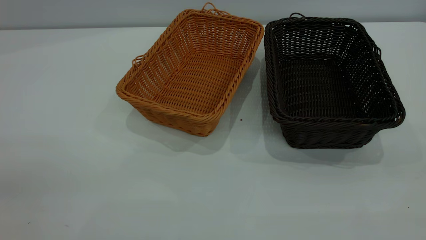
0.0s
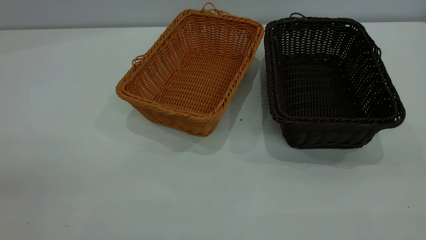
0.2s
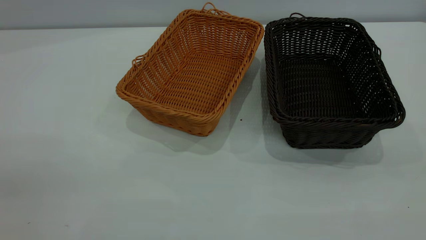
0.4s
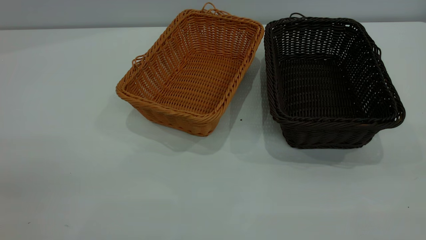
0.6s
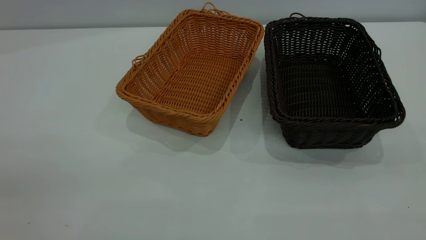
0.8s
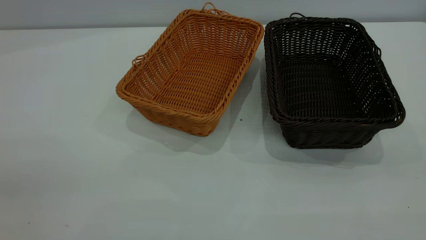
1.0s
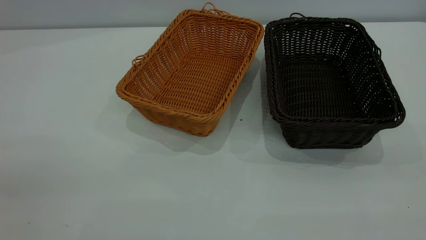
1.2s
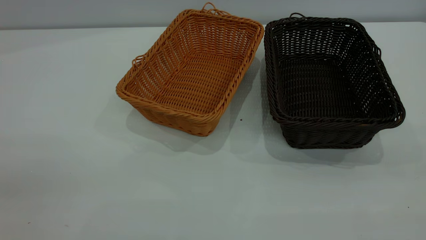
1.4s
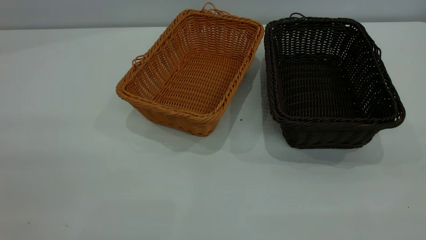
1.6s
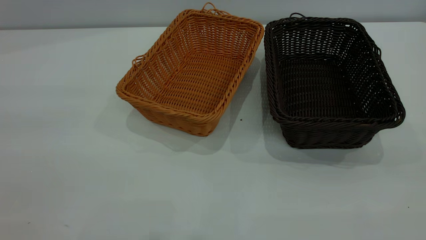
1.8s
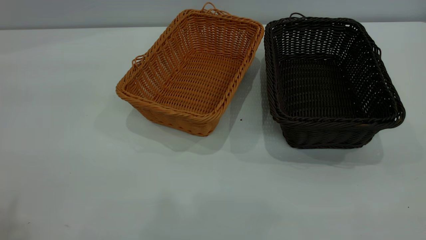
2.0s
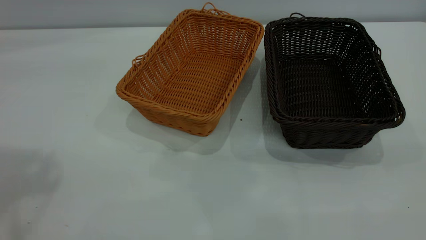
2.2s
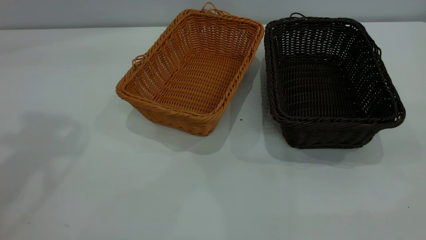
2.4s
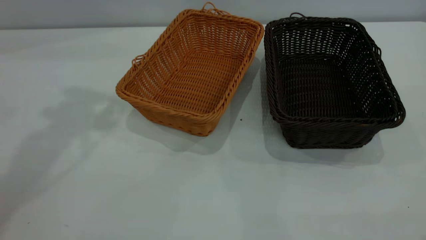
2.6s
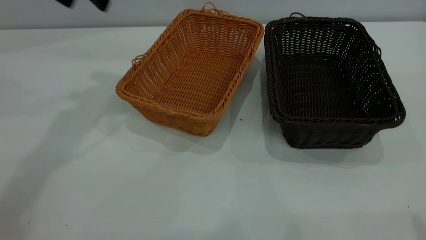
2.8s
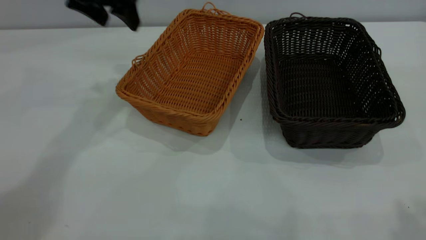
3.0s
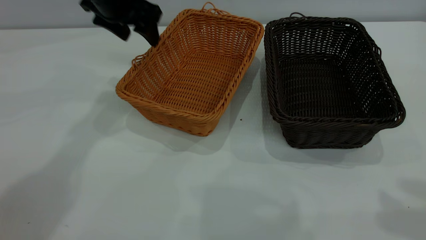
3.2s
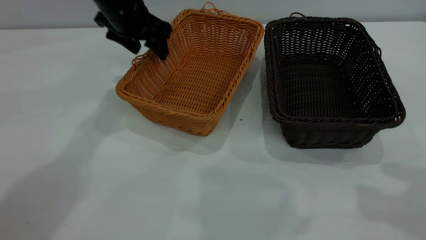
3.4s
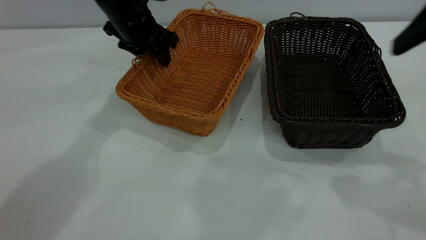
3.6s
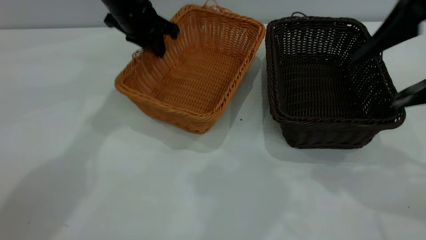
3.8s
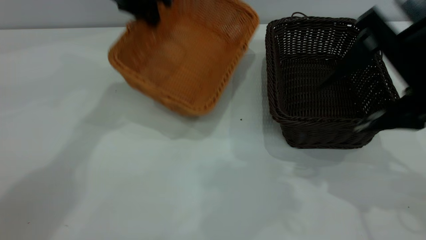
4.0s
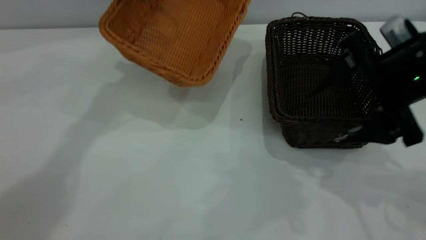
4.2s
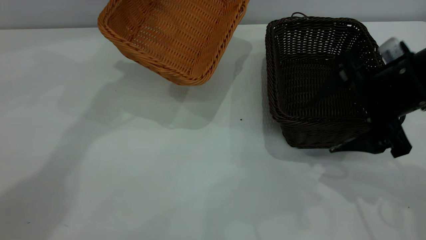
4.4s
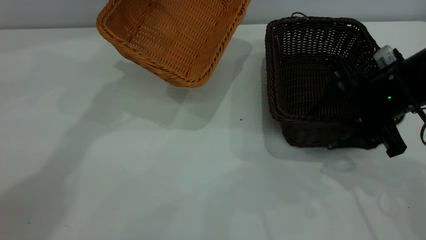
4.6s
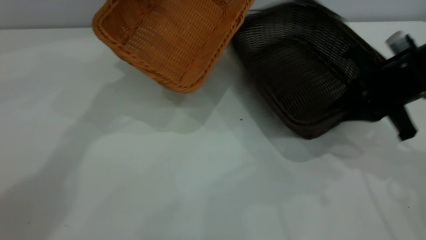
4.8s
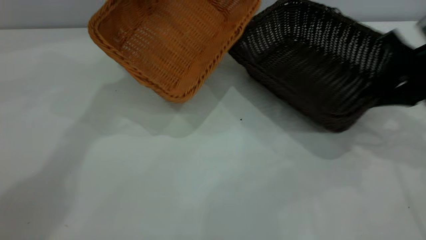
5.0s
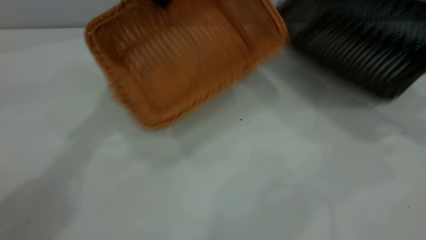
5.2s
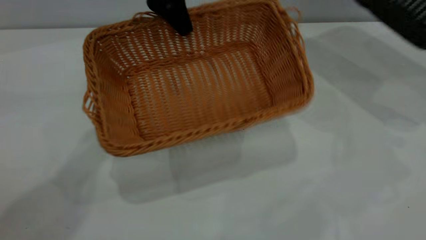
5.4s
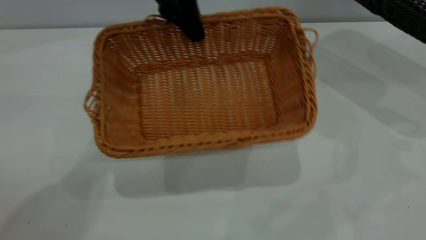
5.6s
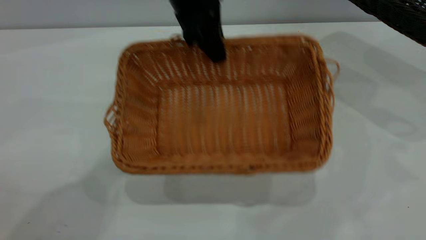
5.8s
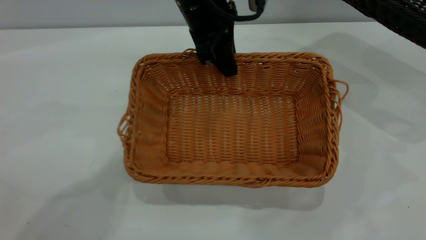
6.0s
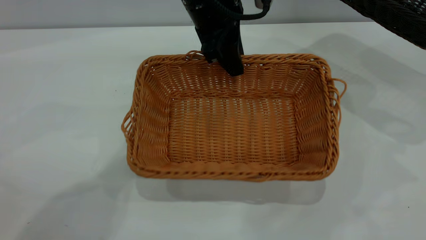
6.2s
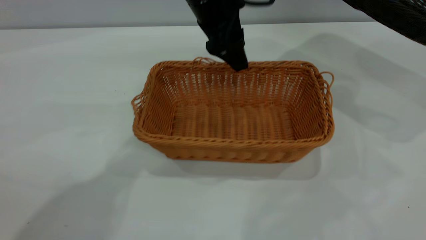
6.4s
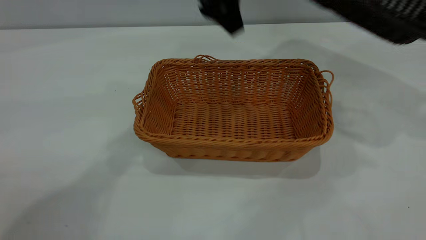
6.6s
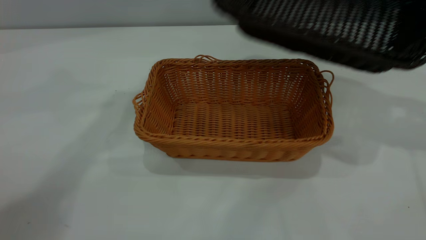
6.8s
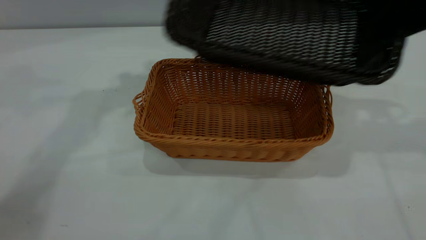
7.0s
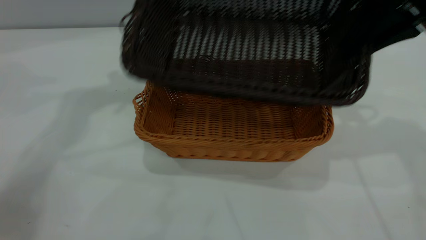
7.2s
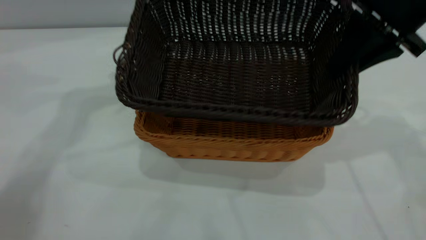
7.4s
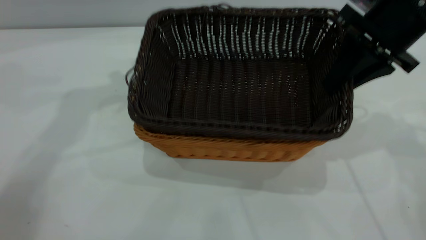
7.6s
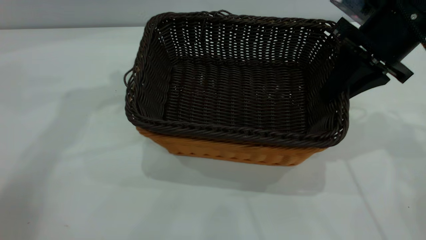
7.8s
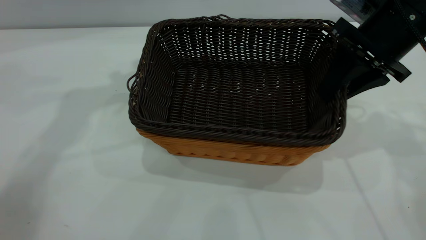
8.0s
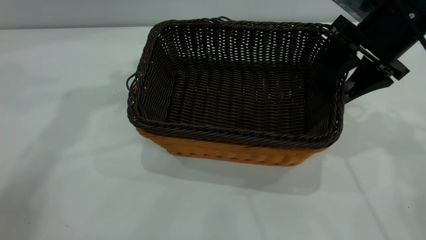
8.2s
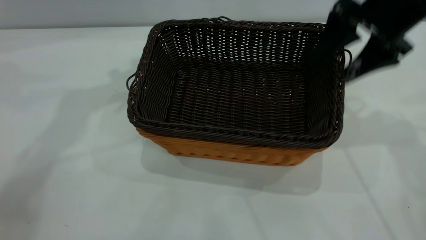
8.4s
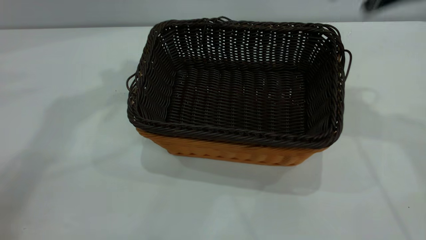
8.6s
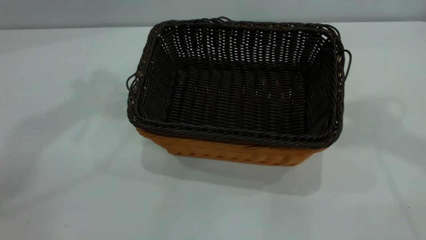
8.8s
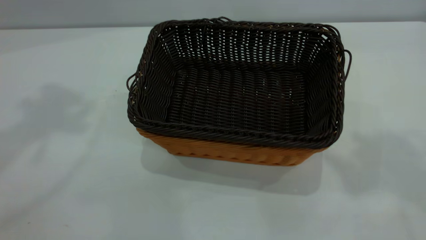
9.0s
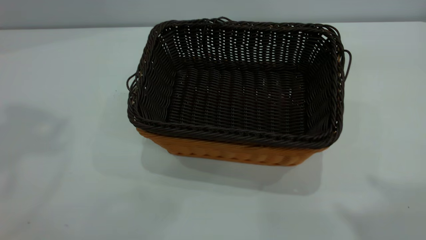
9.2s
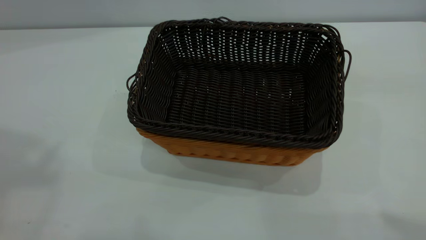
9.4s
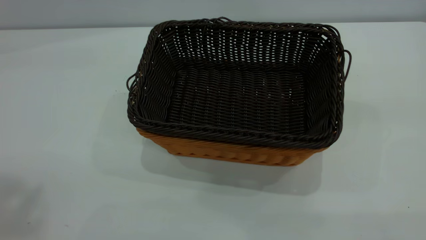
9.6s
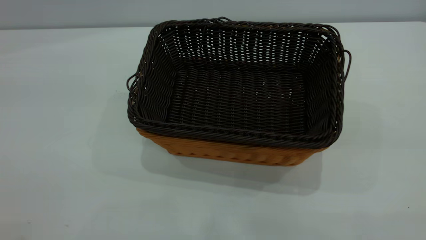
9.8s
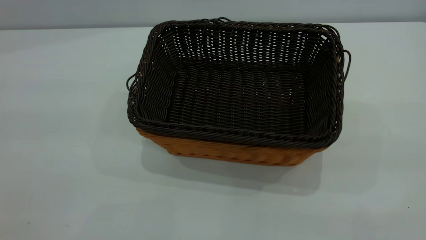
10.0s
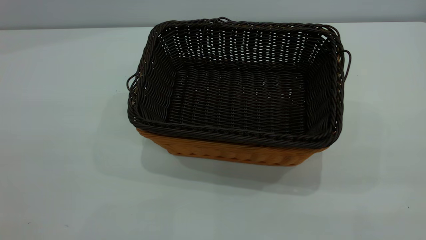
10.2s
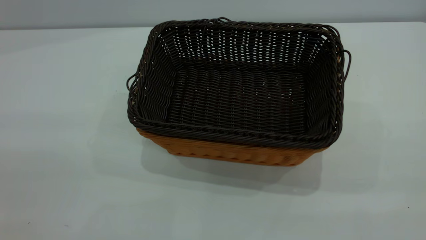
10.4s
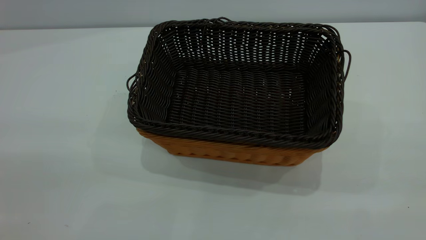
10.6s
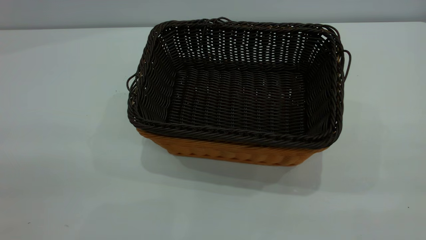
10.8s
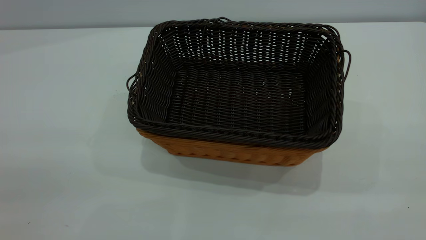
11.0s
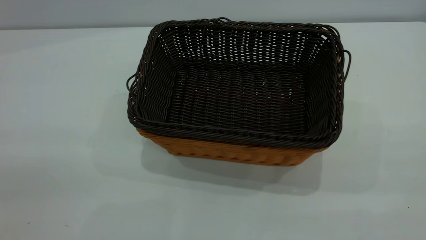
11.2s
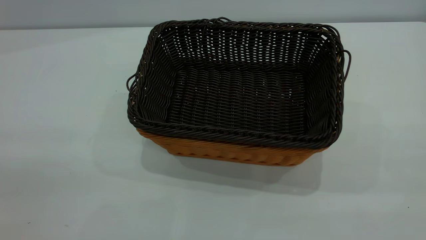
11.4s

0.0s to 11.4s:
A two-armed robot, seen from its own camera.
Task of the whole recording: the left gripper grasp the brown basket and place it in the center of the table, the right gripper grasp the black basket and place it inside the brown one.
Step, 0.0s to 5.0s: Pick up the light basket with the right gripper.
Step, 5.4s to 6.4s: Place the light-colored basket in the center.
Step, 6.6s to 8.4s: Place the dark basket on top of the light basket.
0.0s to 1.4s: Both grippers stay about where they are.
2.8s to 4.2s: The right gripper travels downward and forward by approximately 25 cm, while the left gripper shifts about 10 cm forward and to the right, goes downward and returns, about 15 cm each way, and closes up.
4.2s to 5.6s: The right gripper heads to the right and upward, covering some 25 cm, and closes; the left gripper moves to the right and backward, about 10 cm.
5.6s to 7.2s: The left gripper heads to the left and upward, covering some 15 cm, and opens. Meanwhile the right gripper is displaced to the left by roughly 20 cm.
7.2s to 8.6s: The two grippers go some 5 cm upward. The right gripper opens.
8.6s to 10.0s: Both grippers travel together backward, approximately 35 cm.
